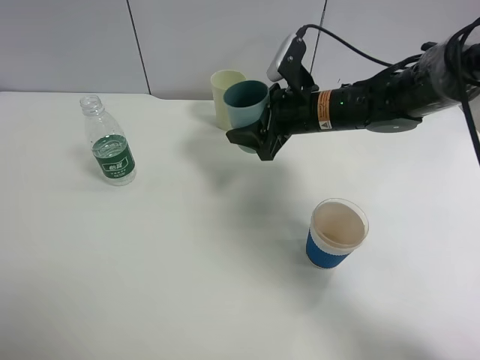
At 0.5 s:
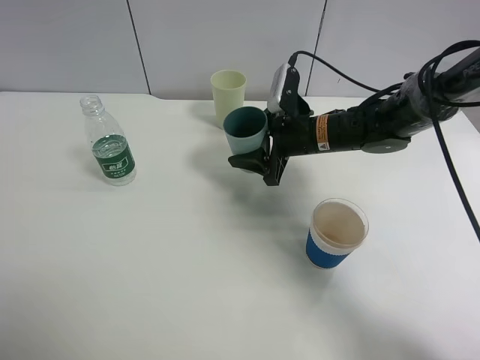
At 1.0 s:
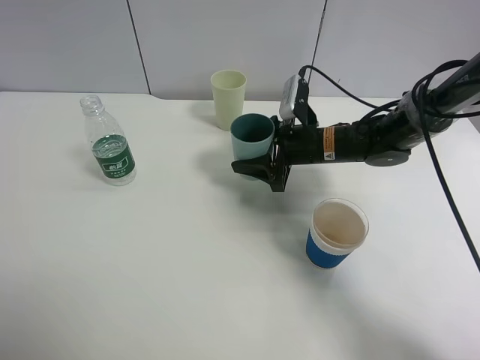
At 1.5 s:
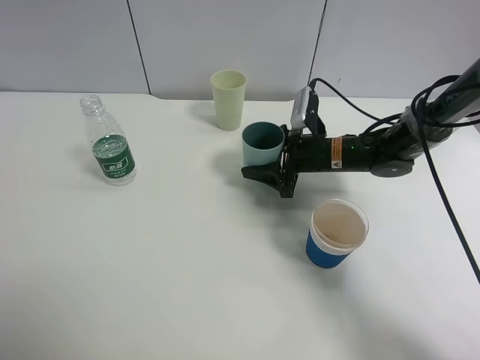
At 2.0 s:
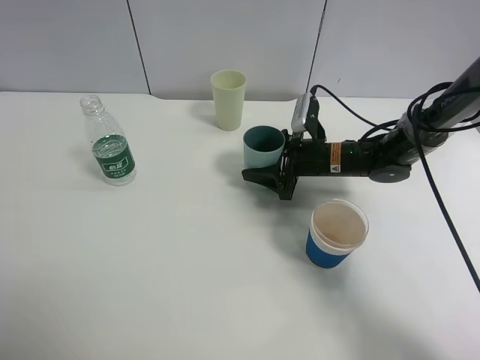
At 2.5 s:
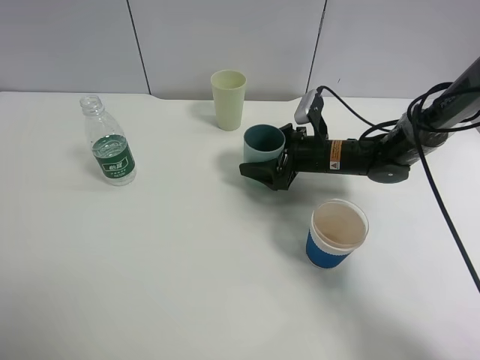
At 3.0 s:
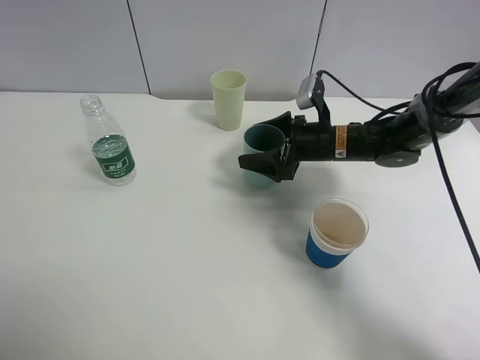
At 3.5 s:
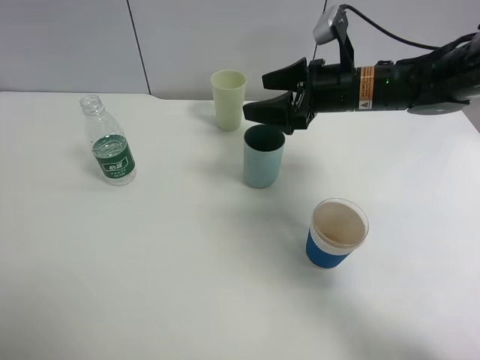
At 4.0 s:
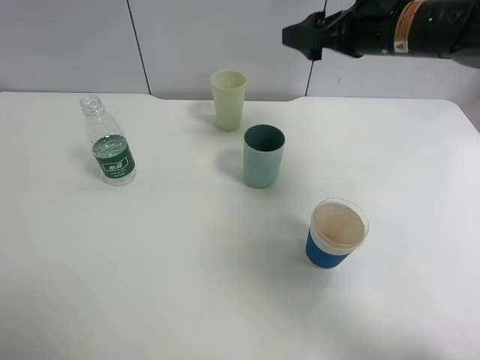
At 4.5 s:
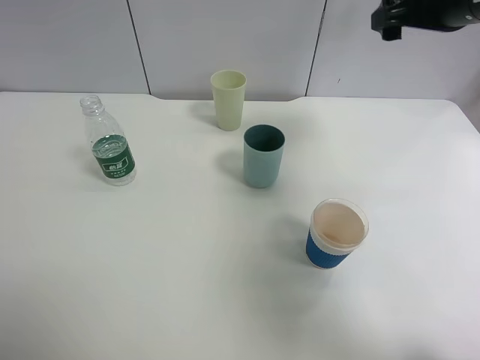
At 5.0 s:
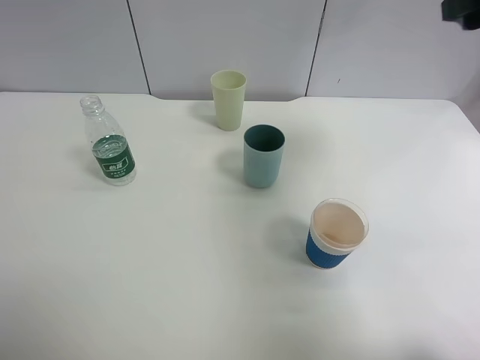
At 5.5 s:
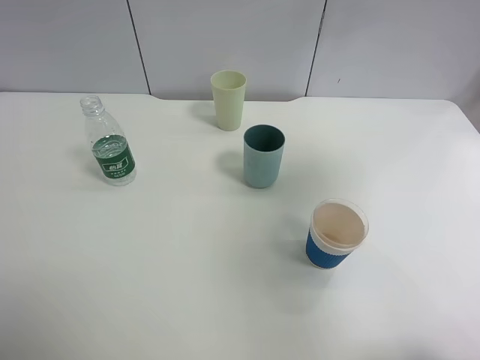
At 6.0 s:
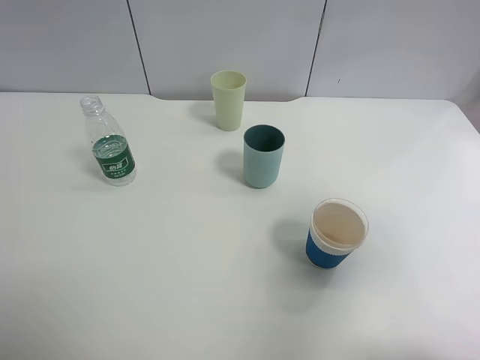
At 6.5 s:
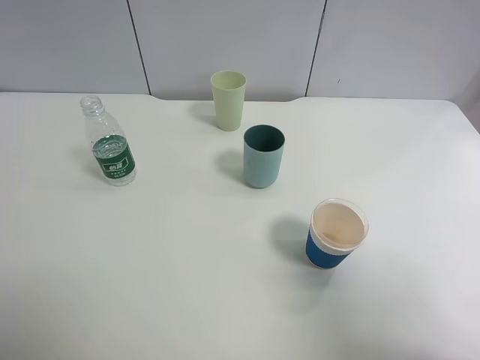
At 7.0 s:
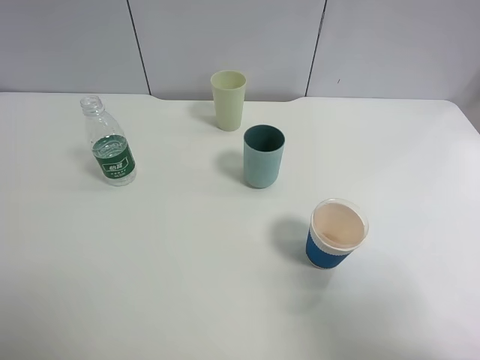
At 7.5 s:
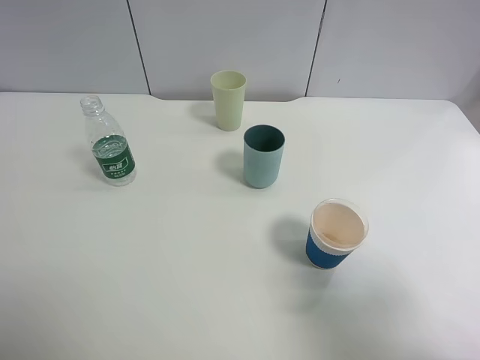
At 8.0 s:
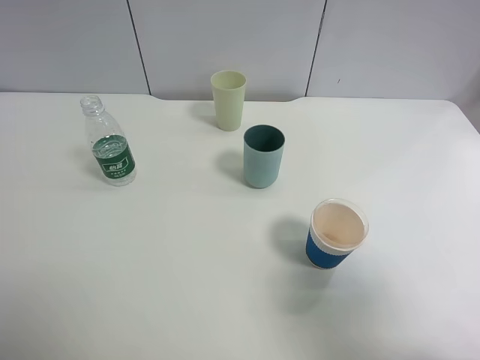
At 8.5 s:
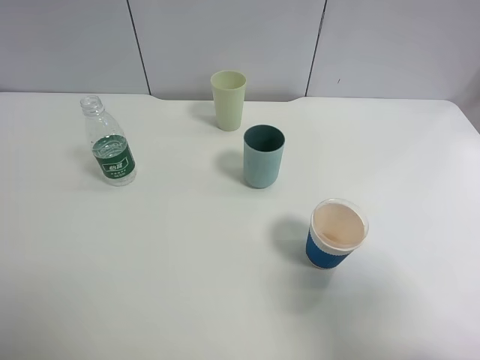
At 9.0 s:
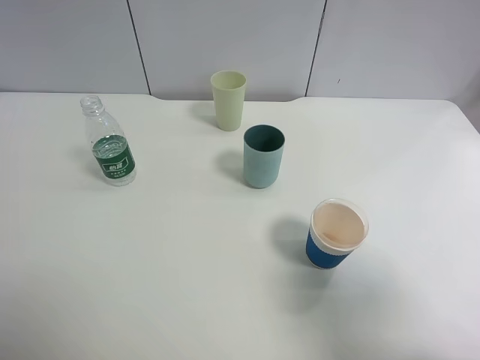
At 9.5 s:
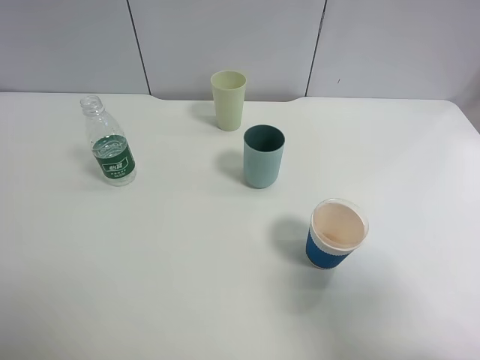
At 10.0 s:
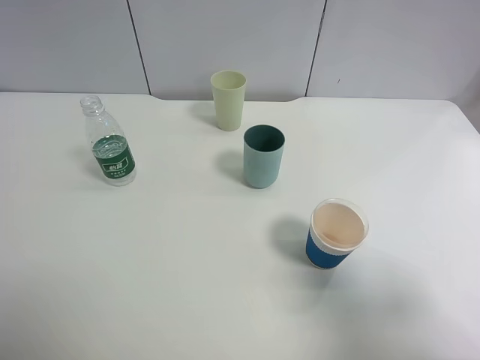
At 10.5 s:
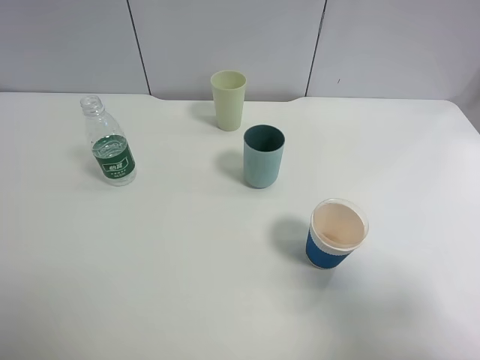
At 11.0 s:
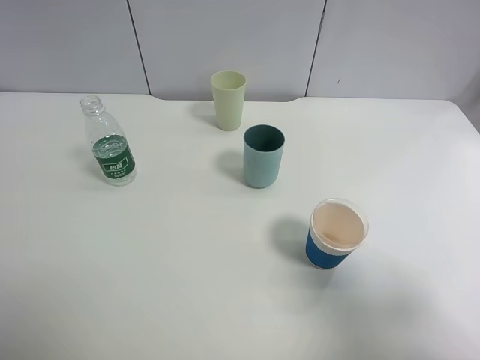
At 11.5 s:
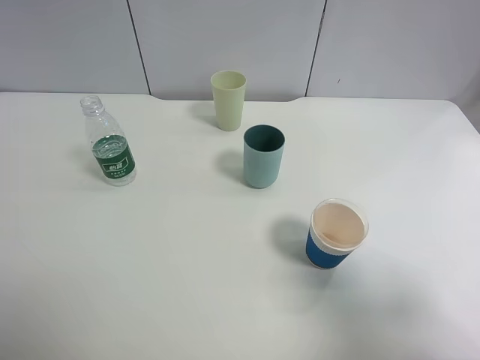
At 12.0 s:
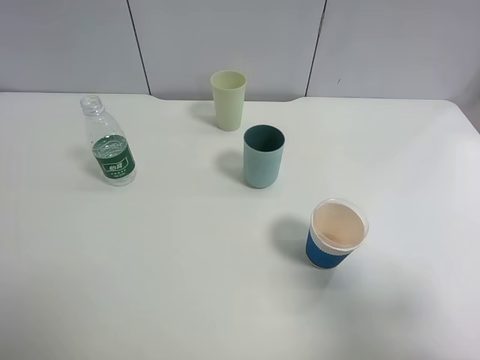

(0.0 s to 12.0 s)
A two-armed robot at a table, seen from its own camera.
Task of the whole recording: use a clamp to hold the bottle of the drink, pour the beverage into a random cup, then clamp the cup containing the drink and pour the drink into another random cup.
Step, 0.0 s - 2.5 s: Place the blue plastic cup on the table with right gripper.
0.0 s - 2.0 s: The right gripper is displaced downward by some 10 cm.
2.0 s - 4.0 s: The right gripper travels upward by about 20 cm, and opens up.
4.0 s - 6.0 s: The right gripper moves backward and to the right, approximately 35 cm.
6.0 s - 8.0 s: The right gripper is displaced downward by approximately 10 cm.
8.0 s - 10.0 s: The grippers stay close to where they were, moving slightly.
10.0 s - 12.0 s: Both grippers stay about where they are.

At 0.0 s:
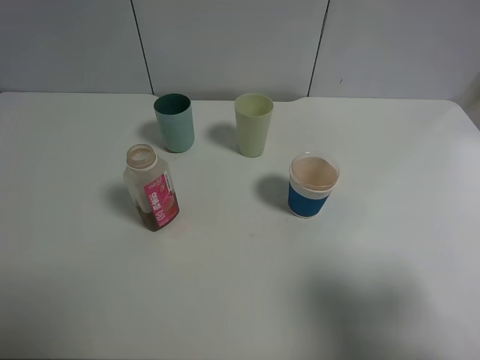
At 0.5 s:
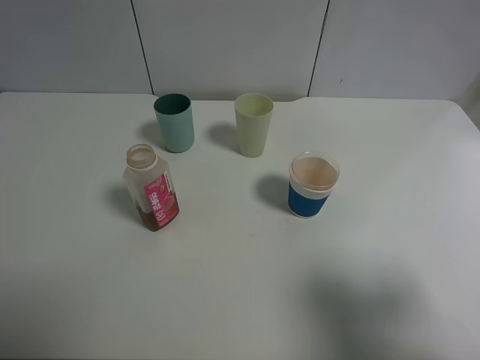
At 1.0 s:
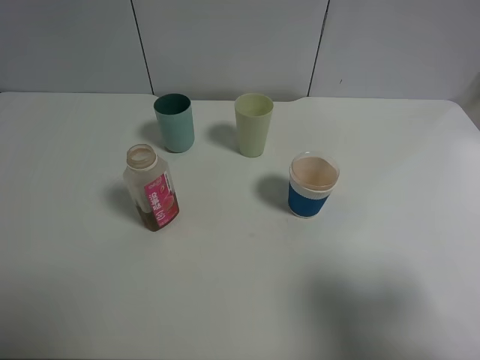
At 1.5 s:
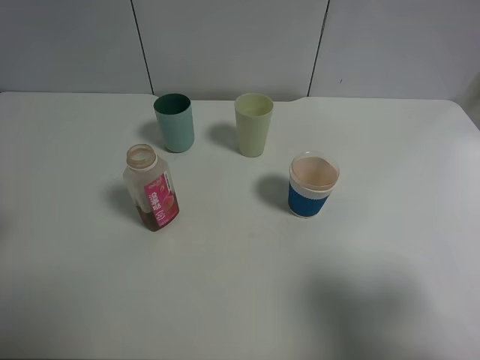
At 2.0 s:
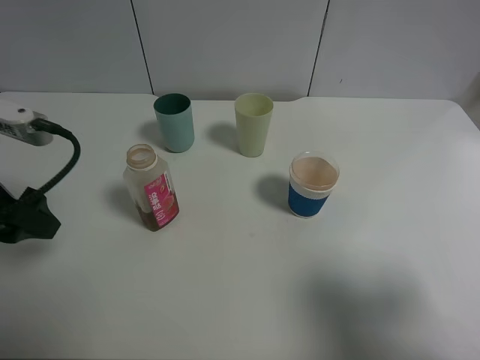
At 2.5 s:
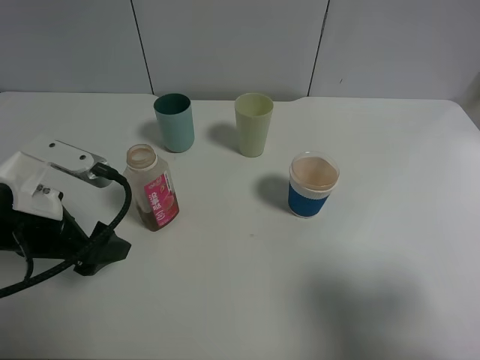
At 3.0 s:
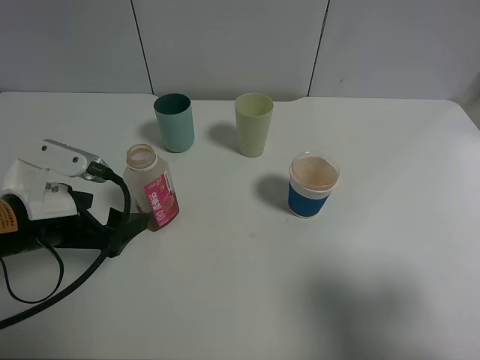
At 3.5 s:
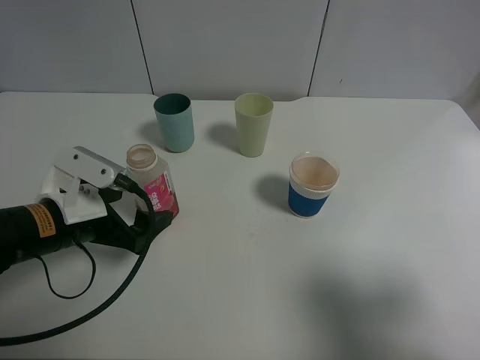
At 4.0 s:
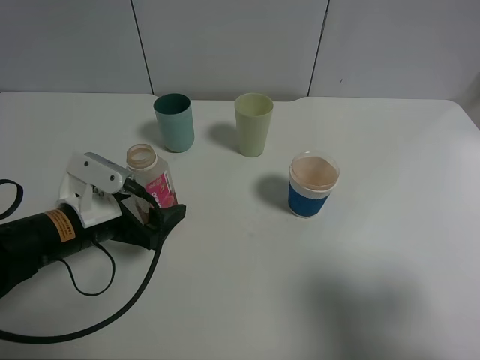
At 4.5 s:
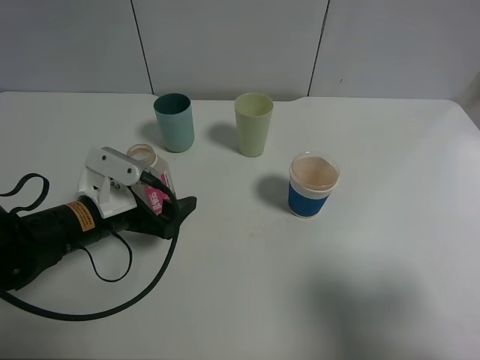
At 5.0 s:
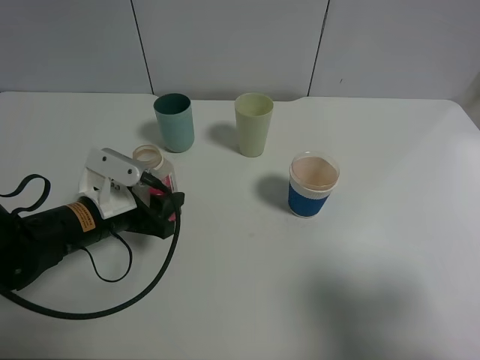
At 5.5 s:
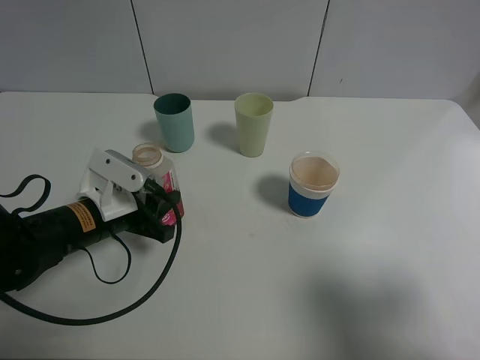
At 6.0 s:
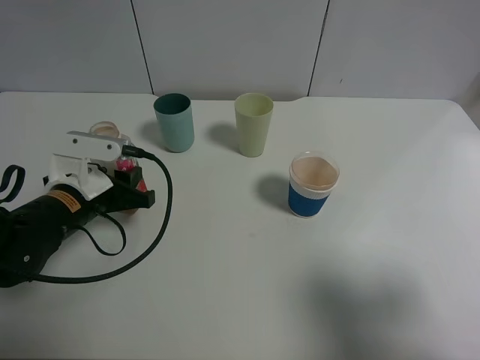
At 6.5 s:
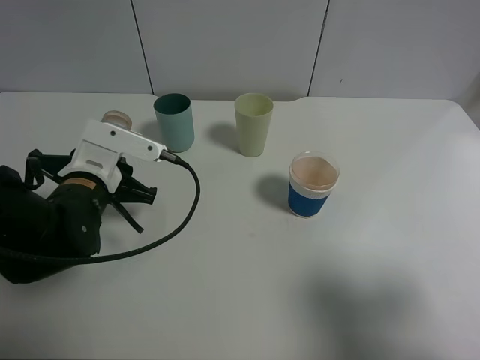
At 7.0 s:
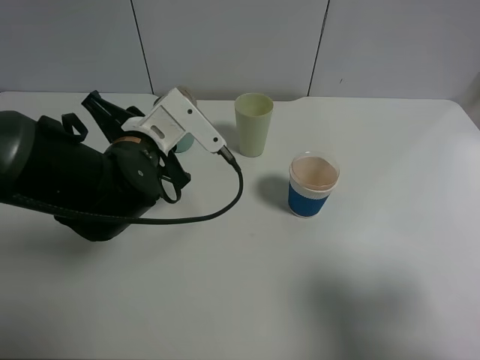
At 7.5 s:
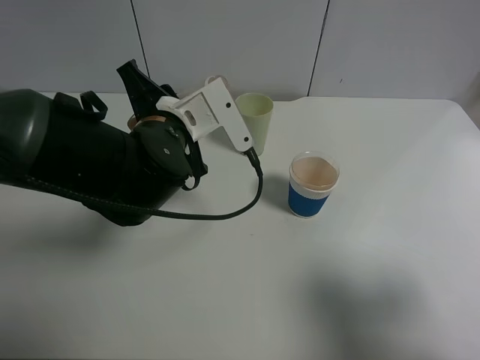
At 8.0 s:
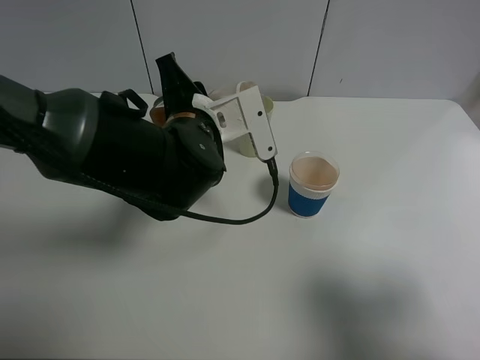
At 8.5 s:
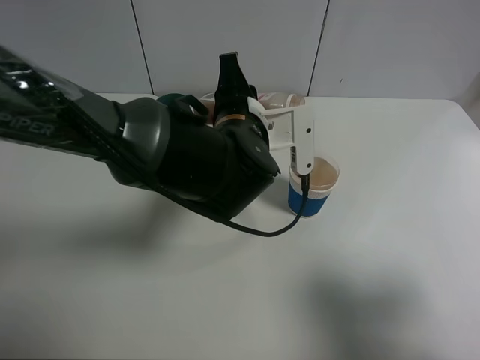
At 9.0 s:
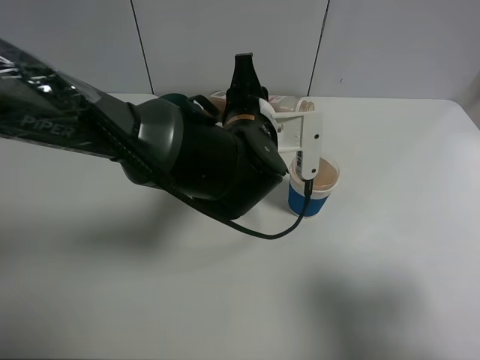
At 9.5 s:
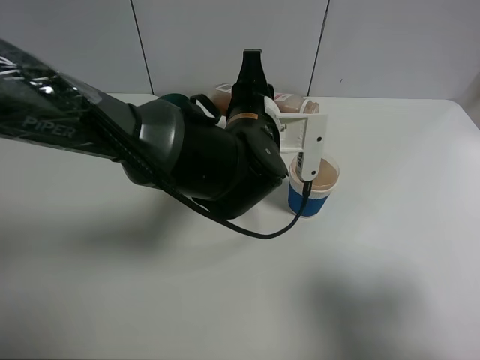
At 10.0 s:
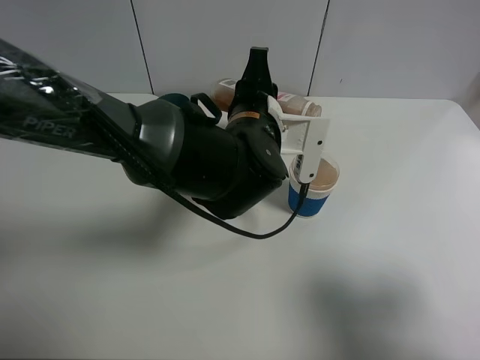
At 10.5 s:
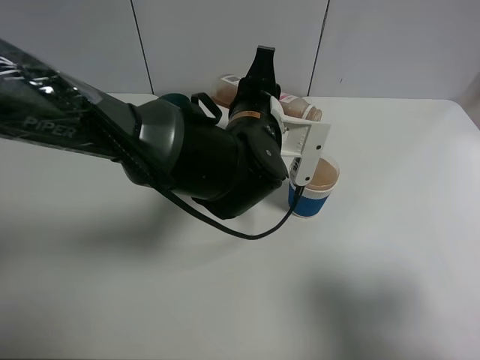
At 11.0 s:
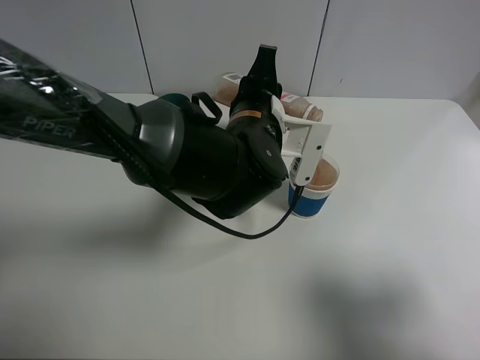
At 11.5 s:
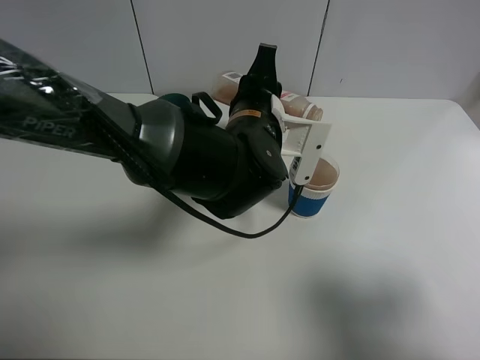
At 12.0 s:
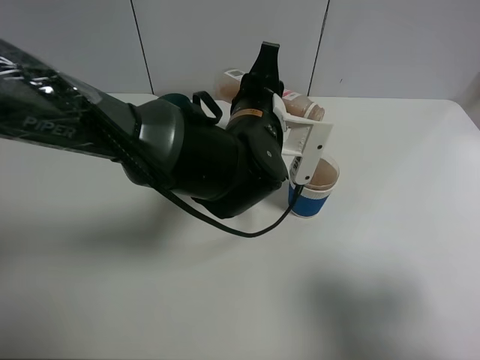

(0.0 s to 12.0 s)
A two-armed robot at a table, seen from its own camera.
Task of the whole recording: use a clamp to hold the bottle of the drink, pour the beverage into a random cup, then clamp the cup containing the drink and pour the drink into another random cup.
Step, 0.0 s - 6.5 s: Pick up the drink bottle with left gripper.
0.0 s - 2.0 s: The left gripper is displaced forward by some 15 cm.
2.0 s - 4.0 s: The left gripper is displaced downward and to the right by roughly 15 cm.
4.0 s - 6.0 s: The left gripper closes its fingers.
6.0 s - 8.0 s: The left gripper goes about 15 cm to the right and upward.
8.0 s - 10.0 s: The left gripper moves to the right, some 5 cm.
10.0 s - 12.0 s: The grippers stay close to where they were, moving slightly.

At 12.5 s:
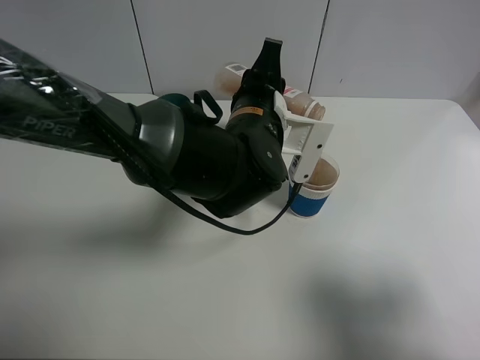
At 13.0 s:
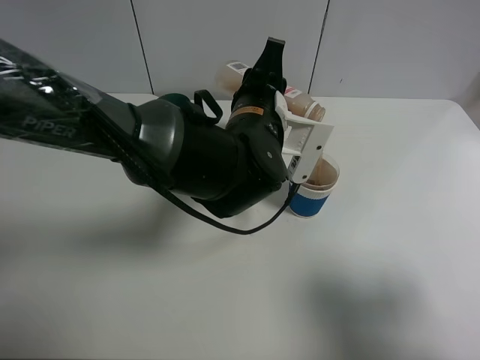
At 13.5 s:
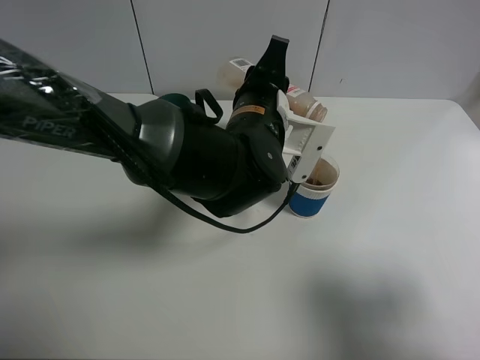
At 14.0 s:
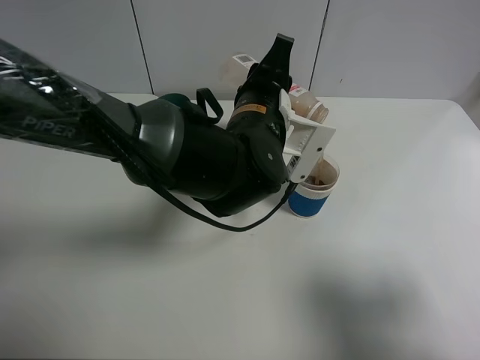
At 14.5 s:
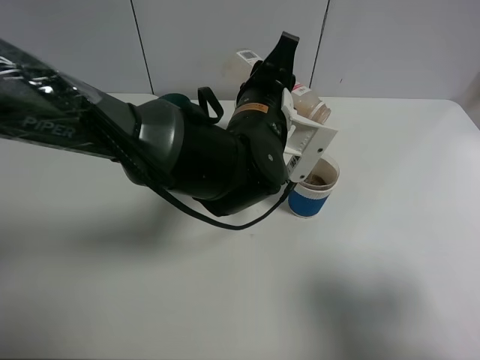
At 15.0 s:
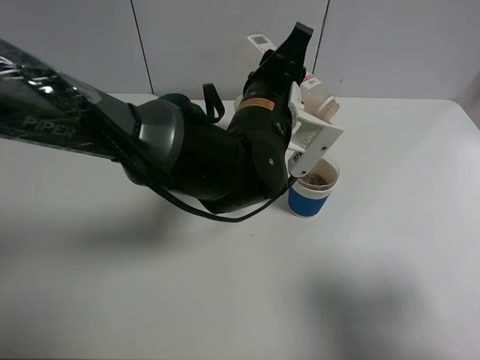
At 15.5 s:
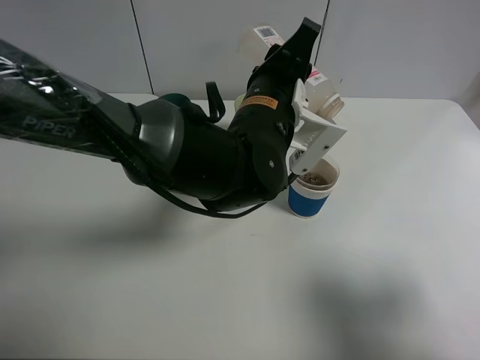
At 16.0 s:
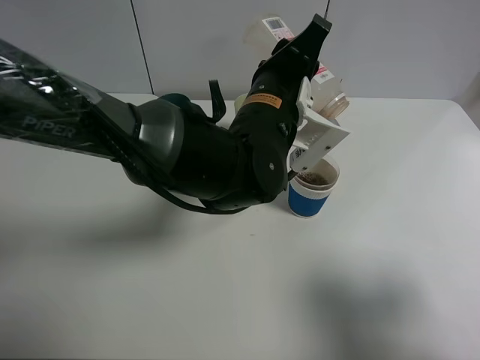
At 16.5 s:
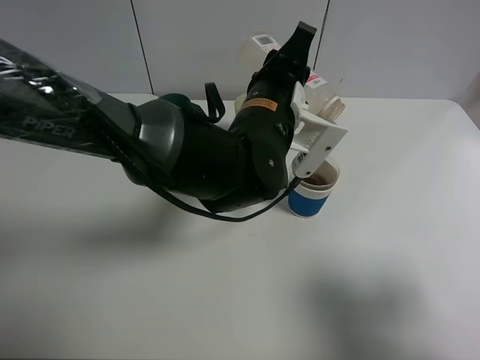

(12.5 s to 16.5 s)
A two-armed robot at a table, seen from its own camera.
Task of the whole recording: use a clamp to hold the bottle of the drink, pour the beverage into a random cup, then clamp the cup containing the drink and pour the drink into another random cup.
12.5 s - 14.5 s: The grippers move only a little.
14.5 s - 16.5 s: The grippers make only small movements.
